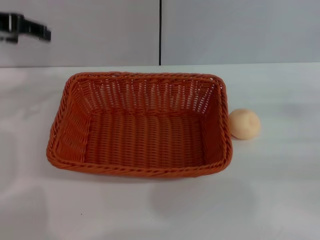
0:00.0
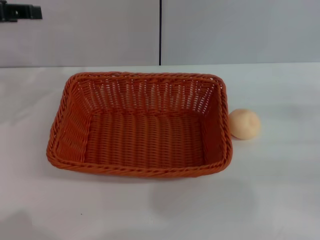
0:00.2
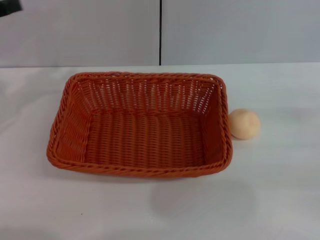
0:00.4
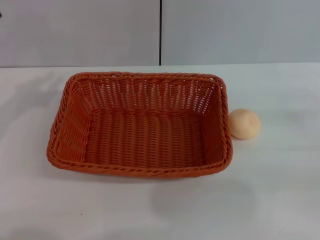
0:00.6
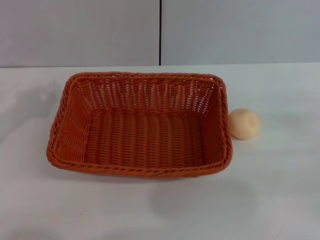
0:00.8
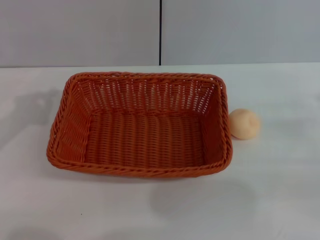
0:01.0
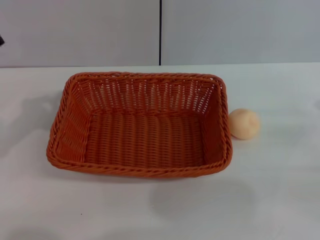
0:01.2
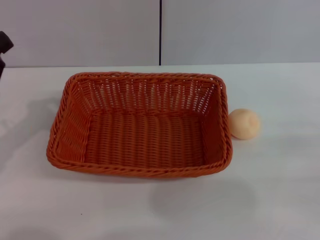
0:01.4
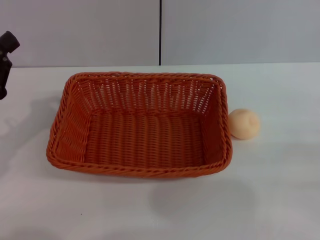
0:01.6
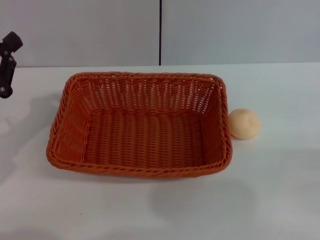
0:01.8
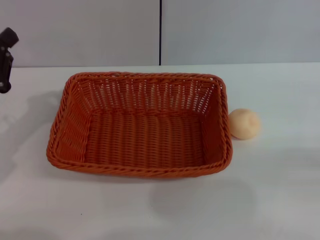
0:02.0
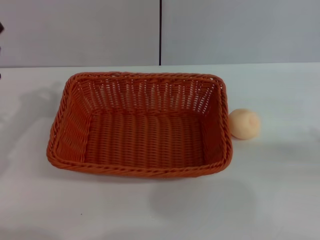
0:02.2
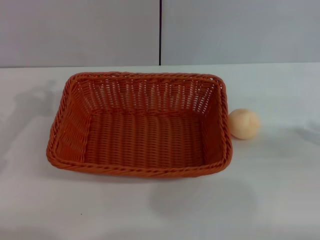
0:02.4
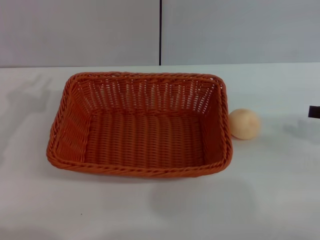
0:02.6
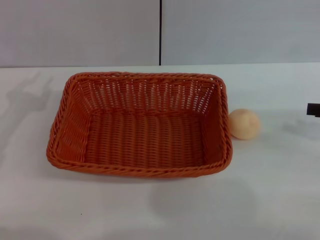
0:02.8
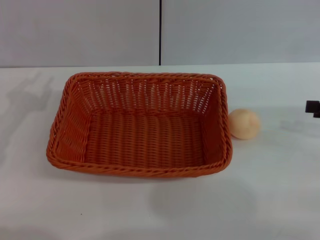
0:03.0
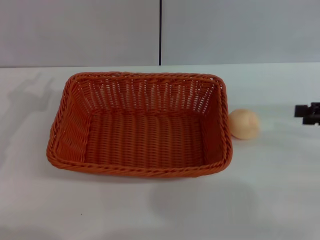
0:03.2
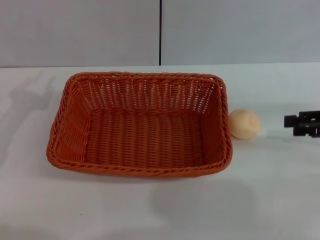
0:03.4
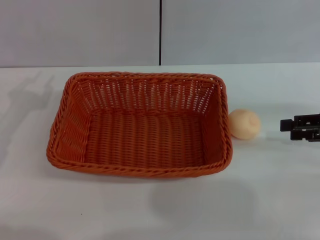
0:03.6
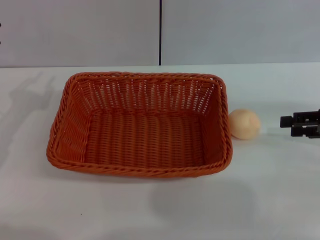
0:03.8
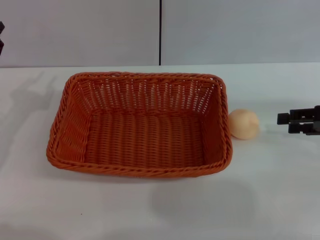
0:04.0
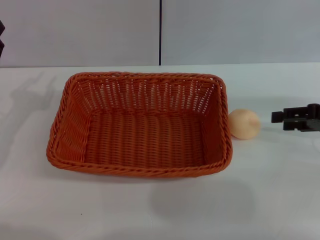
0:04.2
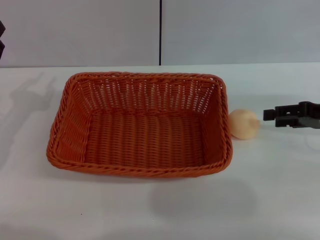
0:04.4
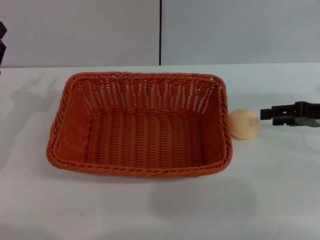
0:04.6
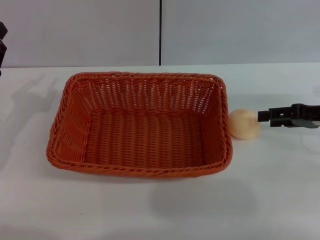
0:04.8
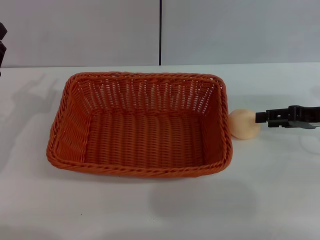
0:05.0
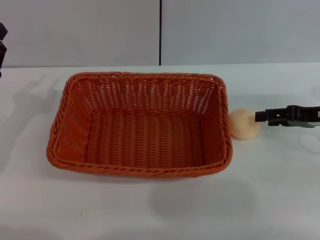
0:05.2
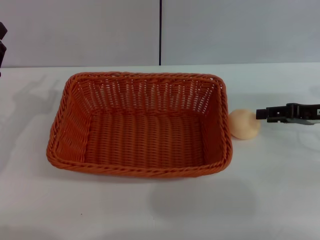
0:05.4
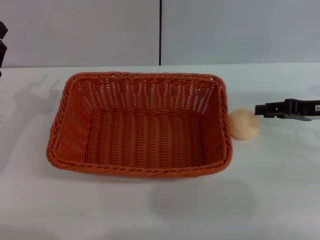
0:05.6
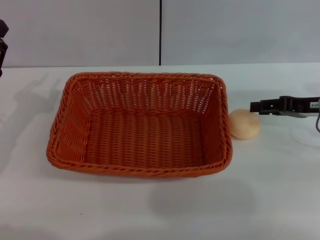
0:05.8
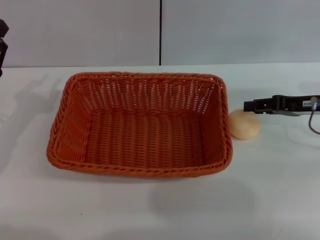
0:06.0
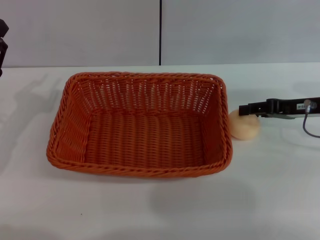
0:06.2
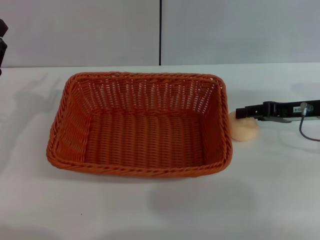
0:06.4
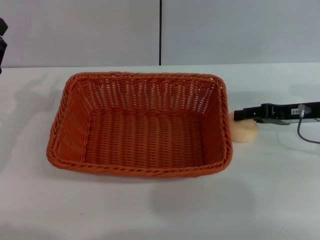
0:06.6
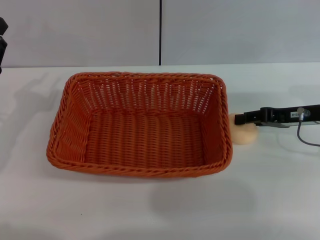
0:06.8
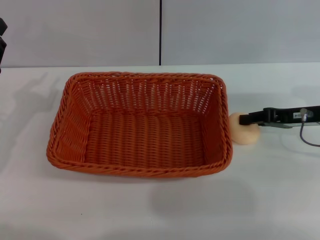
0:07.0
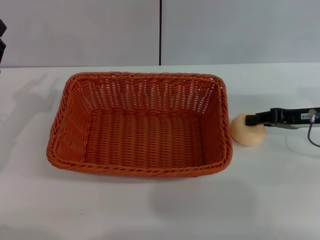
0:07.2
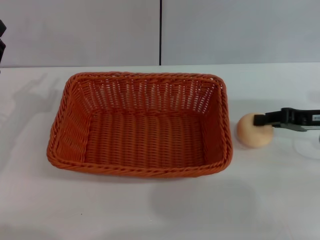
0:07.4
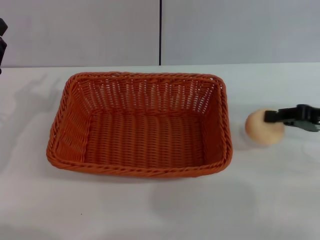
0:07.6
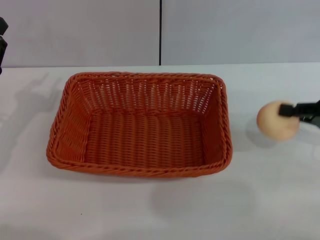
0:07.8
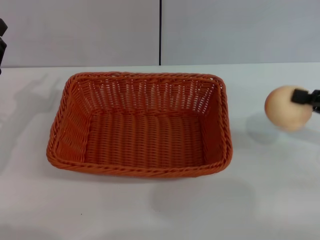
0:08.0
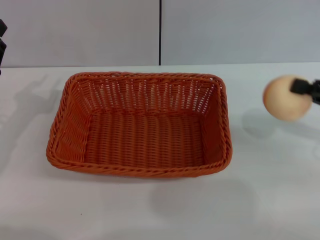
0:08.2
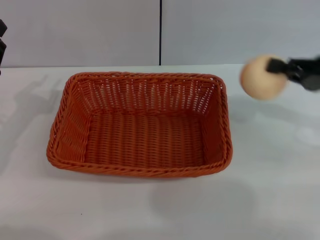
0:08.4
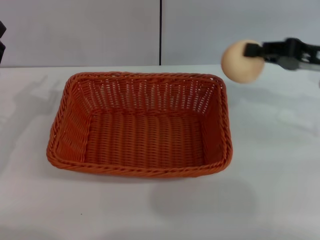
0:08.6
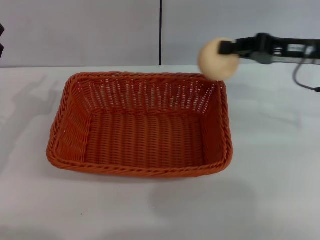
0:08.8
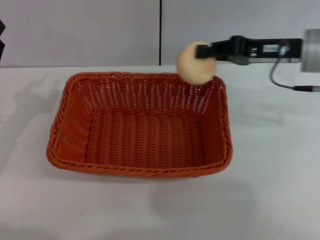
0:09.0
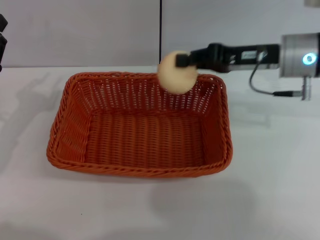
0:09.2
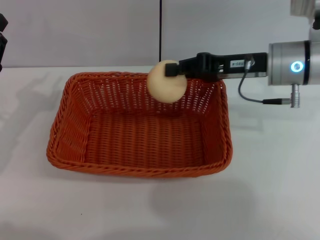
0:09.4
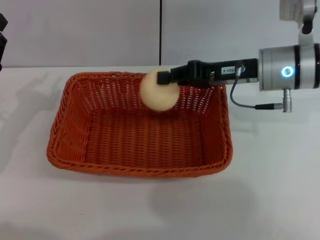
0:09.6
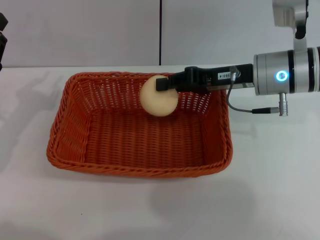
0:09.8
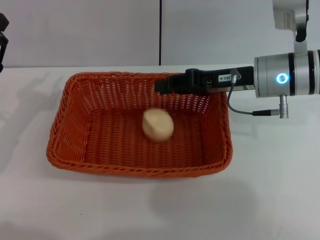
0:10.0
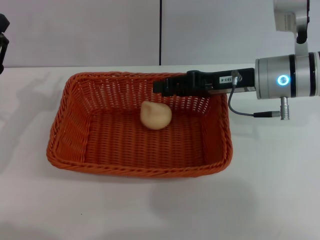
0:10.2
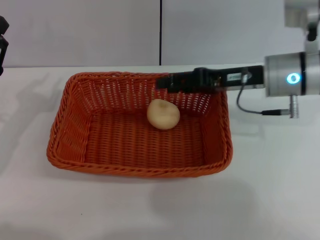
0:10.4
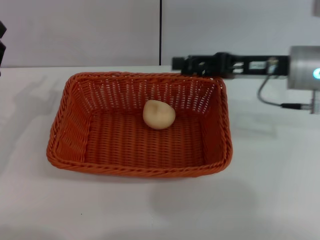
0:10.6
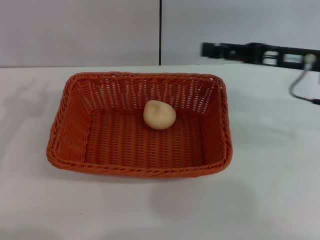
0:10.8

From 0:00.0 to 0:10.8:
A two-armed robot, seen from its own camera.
Step, from 0:00.0 to 0:07.8: Pick up the egg yolk pastry with the right gripper.
Step, from 0:08.0 to 0:10.2: Place the egg yolk pastry into the basket with the right gripper.
From 0:00.0 to 0:01.6: The left gripper shifts roughly 20 cm downward and backward, and closes its fingers.
From 0:01.6 to 0:03.0: The left gripper opens its fingers.
From 0:03.0 to 0:04.6: The right gripper goes approximately 5 cm to the left.
From 0:04.6 to 0:06.2: The right gripper closes its fingers.
From 0:06.2 to 0:07.8: The right gripper is displaced backward by approximately 5 cm, and closes up.
From 0:07.8 to 0:09.2: The right gripper shifts approximately 15 cm to the left and forward.
From 0:09.2 to 0:10.8: The right gripper moves approximately 5 cm, and opens up.

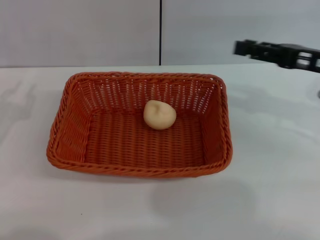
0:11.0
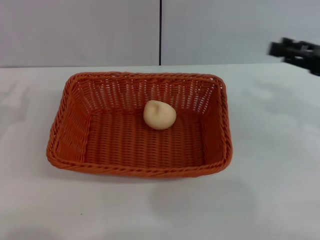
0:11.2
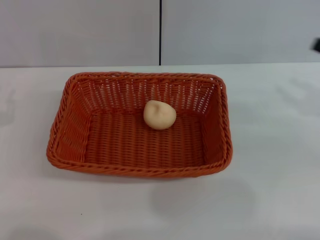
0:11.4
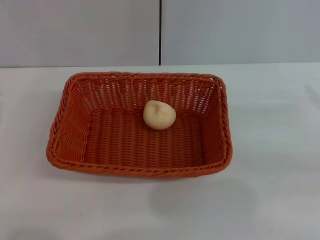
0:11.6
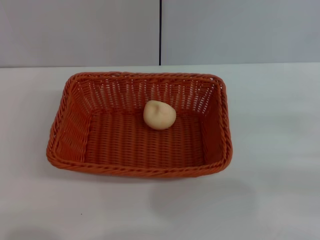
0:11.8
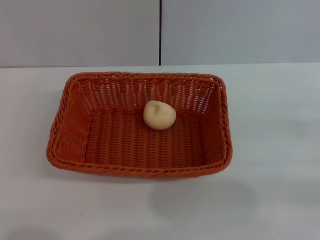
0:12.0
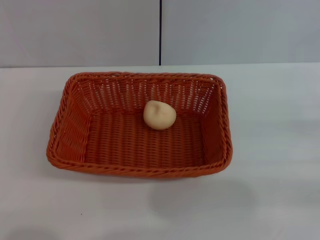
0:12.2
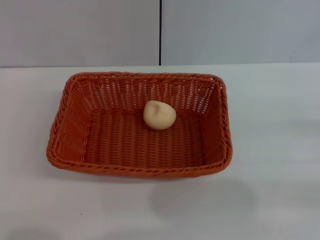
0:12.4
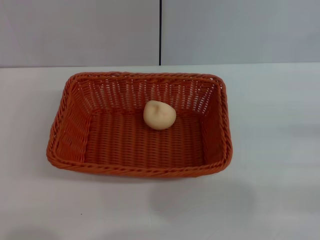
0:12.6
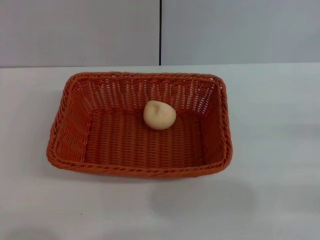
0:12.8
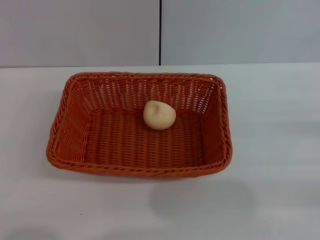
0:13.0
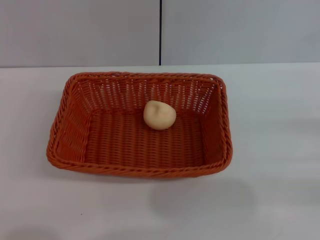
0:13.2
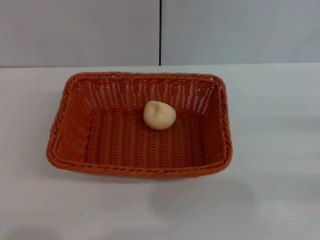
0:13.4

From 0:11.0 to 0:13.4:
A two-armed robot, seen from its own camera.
From 0:11.0 to 0:12.2: The right gripper heads to the right, backward and downward, covering approximately 20 cm.
